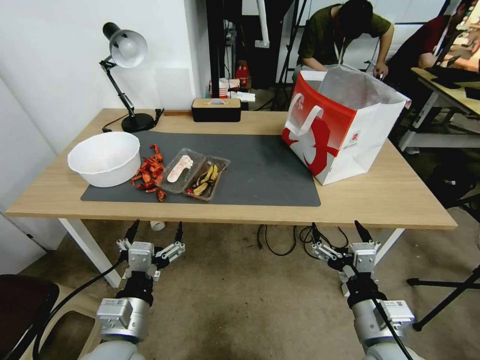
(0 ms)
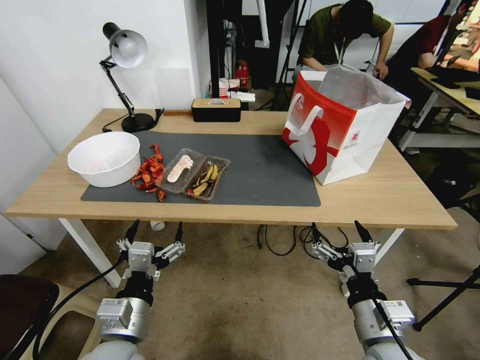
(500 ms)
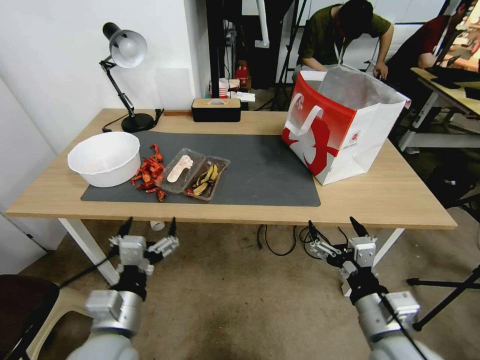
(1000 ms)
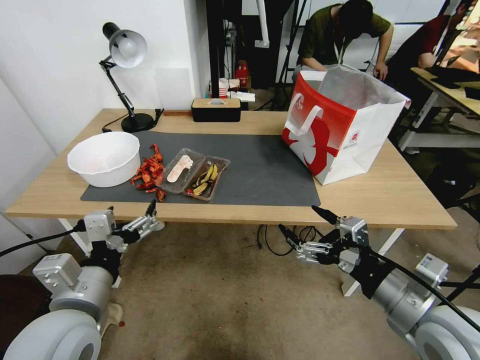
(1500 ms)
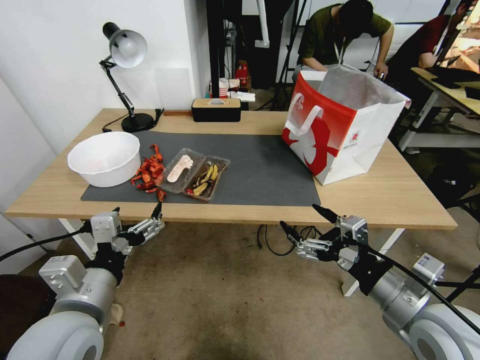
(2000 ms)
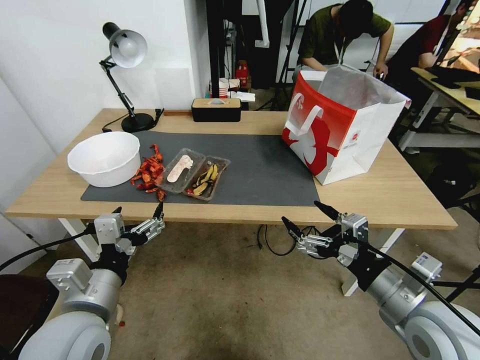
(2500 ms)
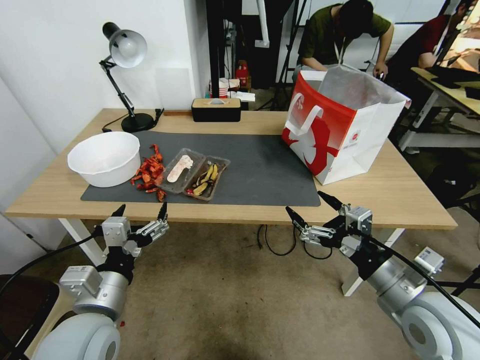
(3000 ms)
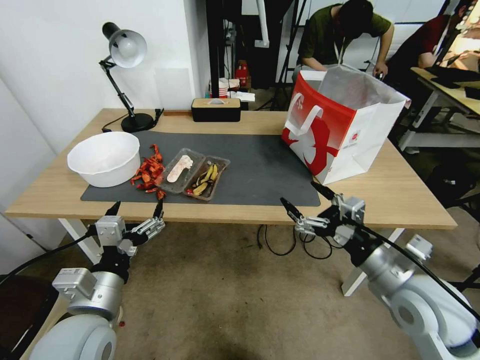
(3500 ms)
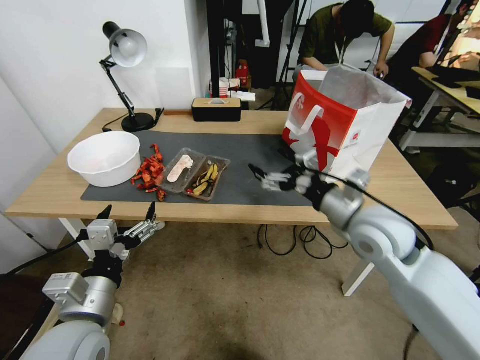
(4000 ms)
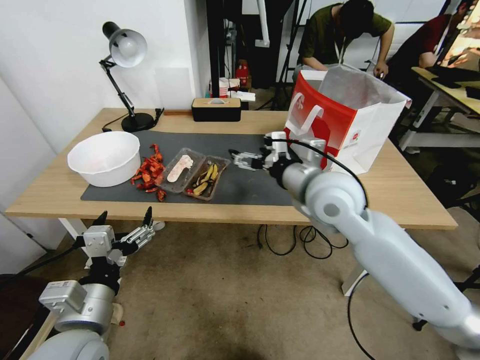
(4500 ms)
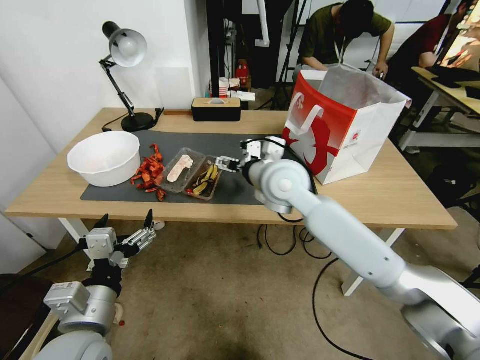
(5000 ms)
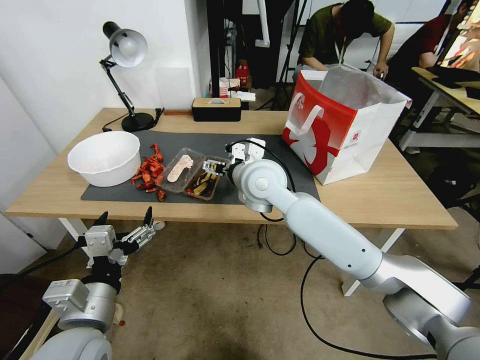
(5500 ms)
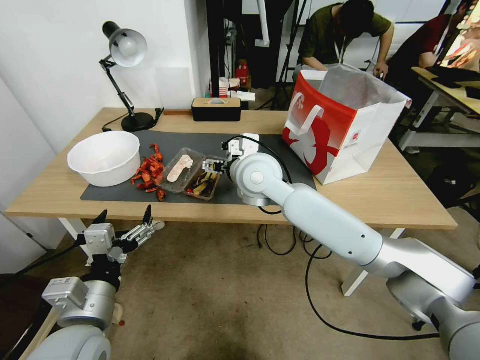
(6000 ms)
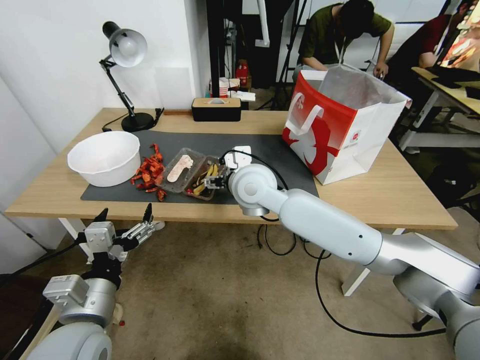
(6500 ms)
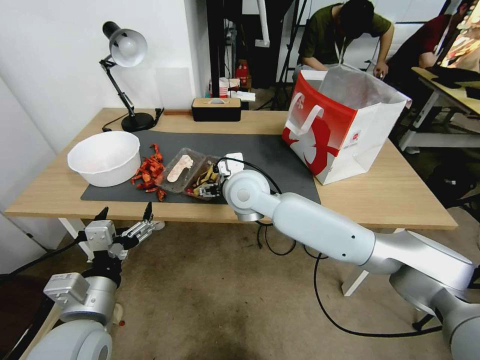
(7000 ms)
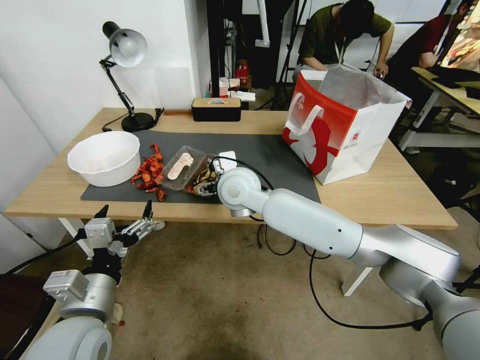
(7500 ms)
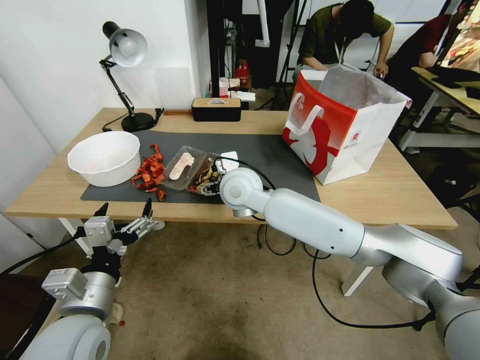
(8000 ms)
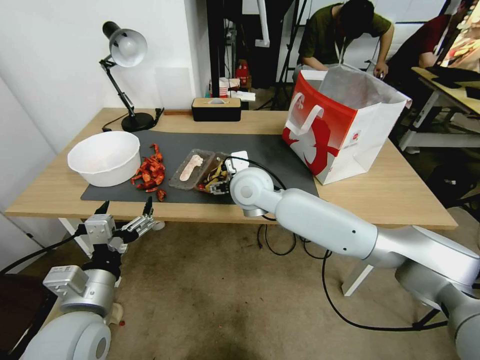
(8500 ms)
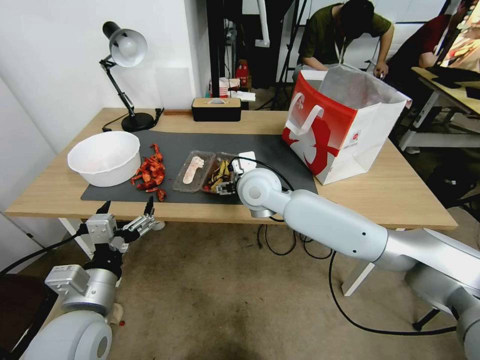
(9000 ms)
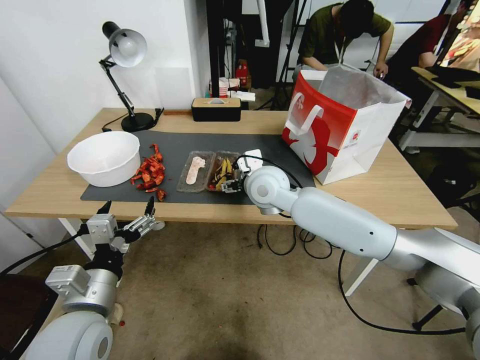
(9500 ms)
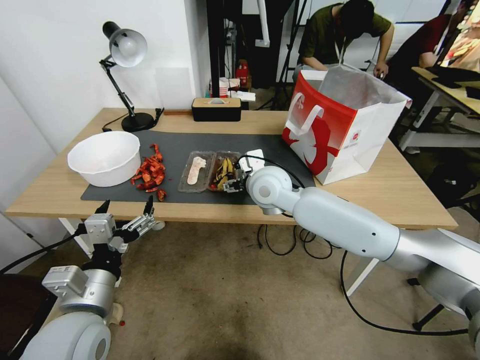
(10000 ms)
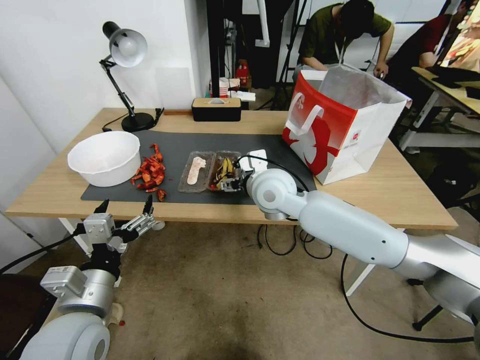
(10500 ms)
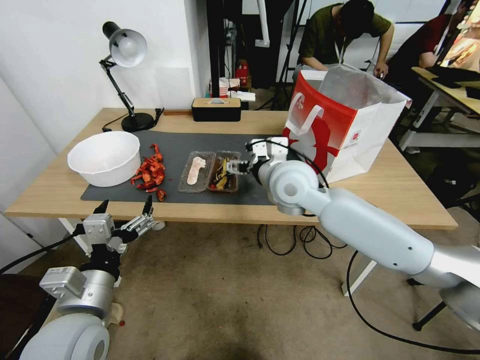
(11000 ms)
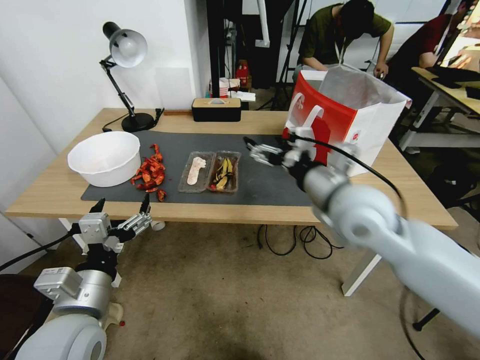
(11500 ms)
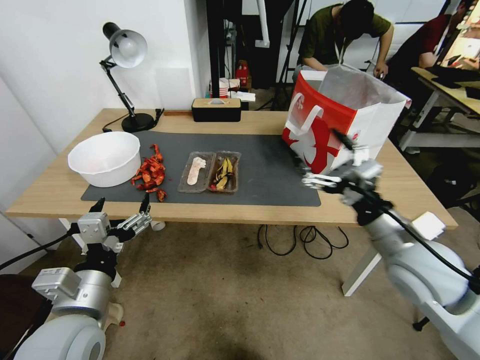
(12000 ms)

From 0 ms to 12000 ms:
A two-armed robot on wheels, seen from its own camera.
From 2000 ms to 4000 ms: The right gripper shifts some 15 cm forward.
From 4000 ms to 6000 ms: The right gripper shifts about 25 cm to the left and forward.
From 6000 ms to 8000 ms: The right gripper shifts by approximately 5 cm.
From 8000 ms to 10000 ms: The right gripper goes roughly 5 cm to the right.
From 10000 ms to 12000 ms: The right gripper is displaced to the right and backward by some 30 cm.

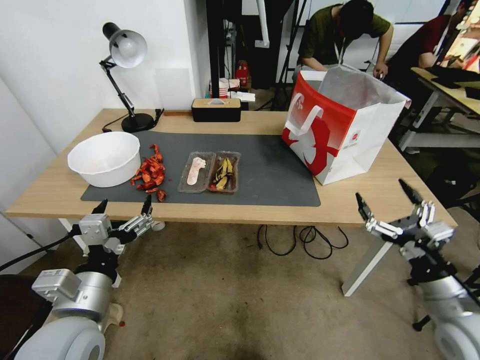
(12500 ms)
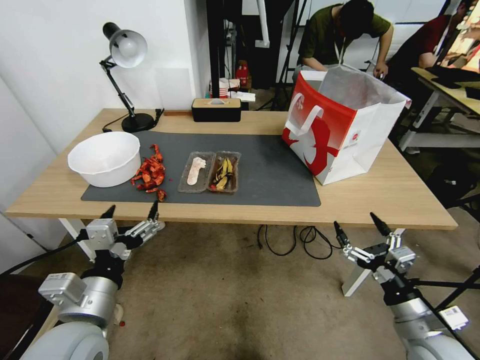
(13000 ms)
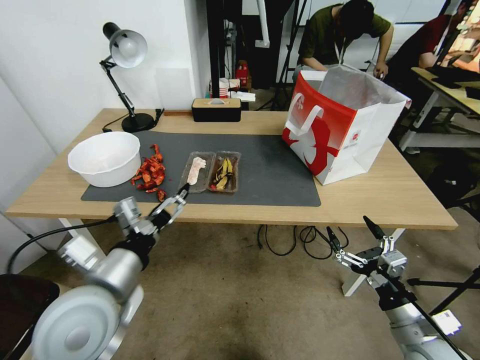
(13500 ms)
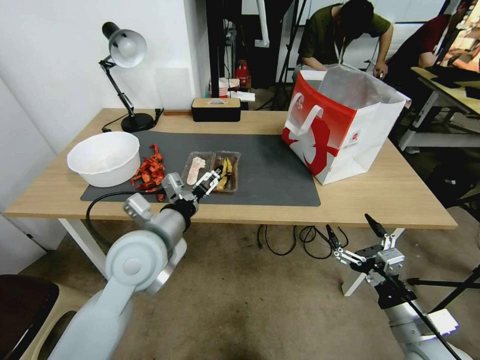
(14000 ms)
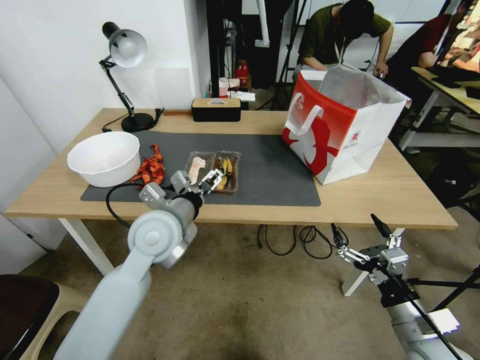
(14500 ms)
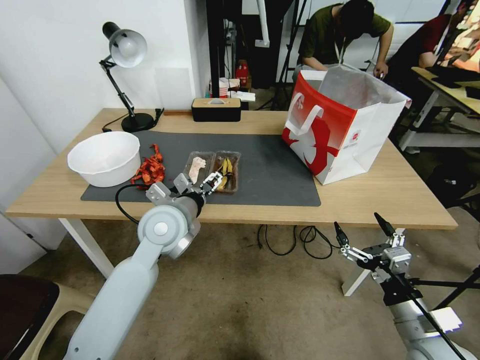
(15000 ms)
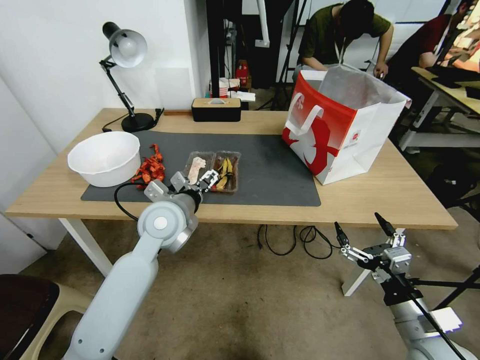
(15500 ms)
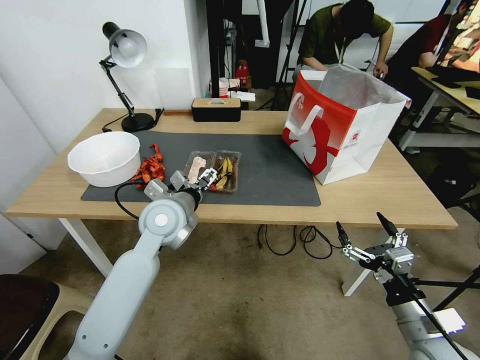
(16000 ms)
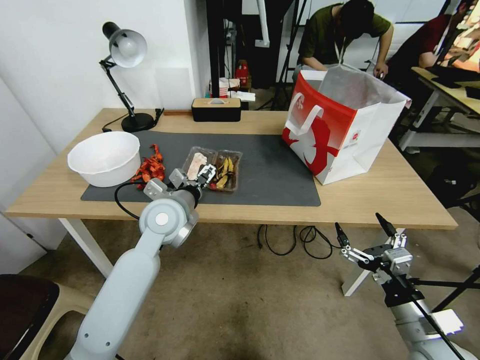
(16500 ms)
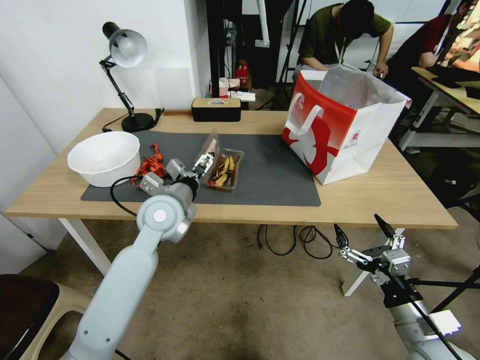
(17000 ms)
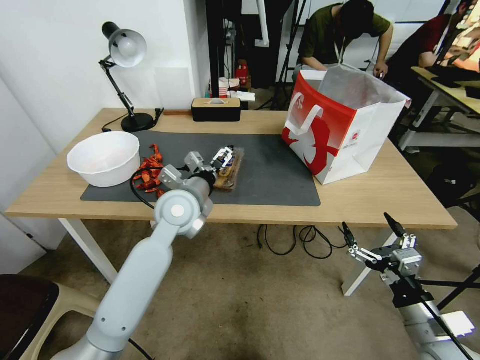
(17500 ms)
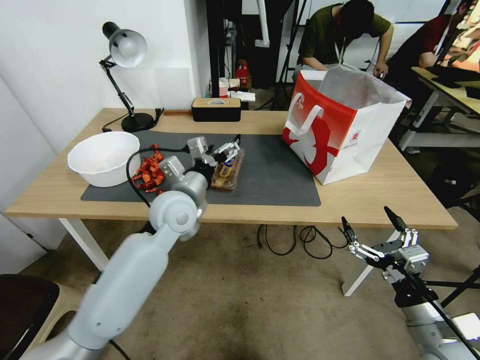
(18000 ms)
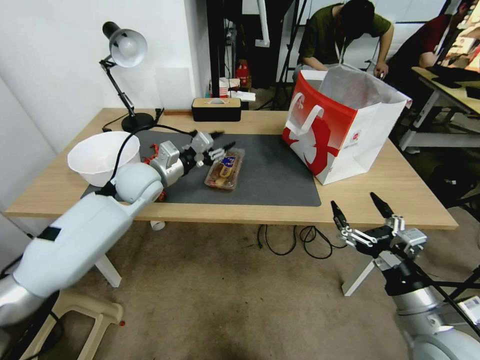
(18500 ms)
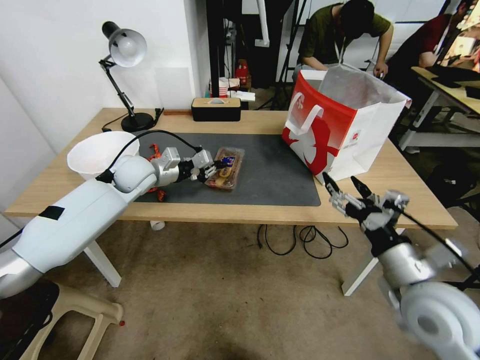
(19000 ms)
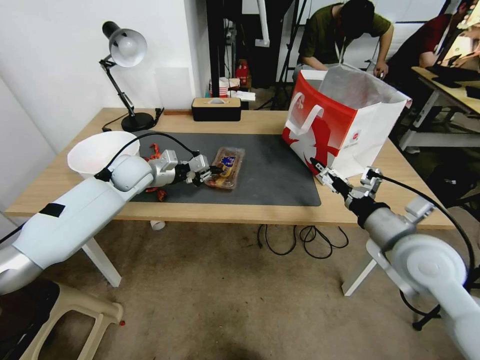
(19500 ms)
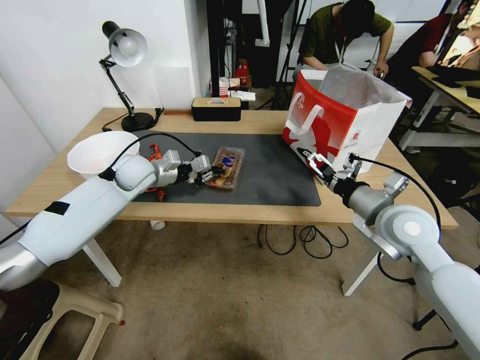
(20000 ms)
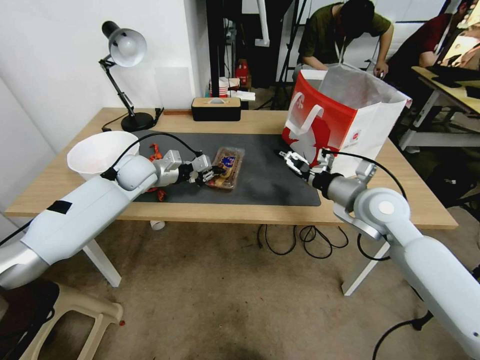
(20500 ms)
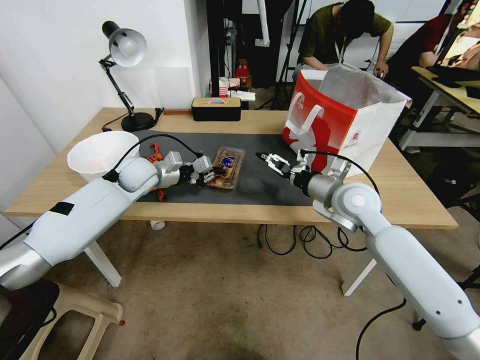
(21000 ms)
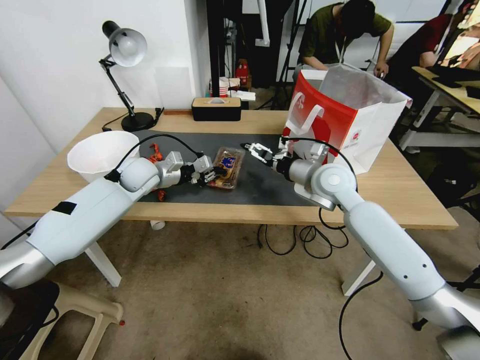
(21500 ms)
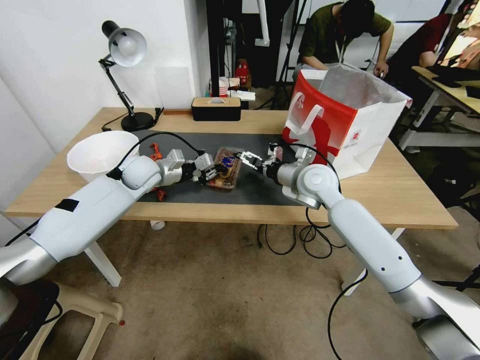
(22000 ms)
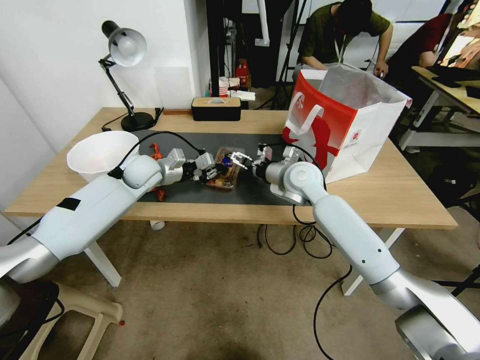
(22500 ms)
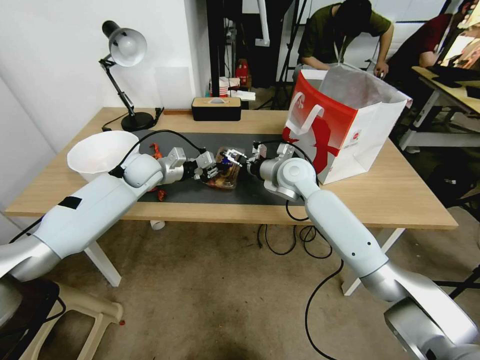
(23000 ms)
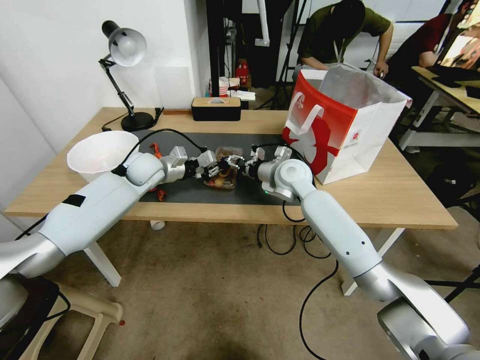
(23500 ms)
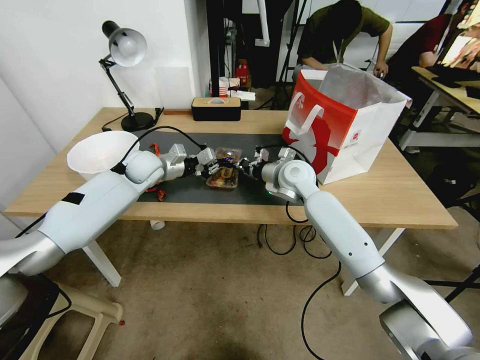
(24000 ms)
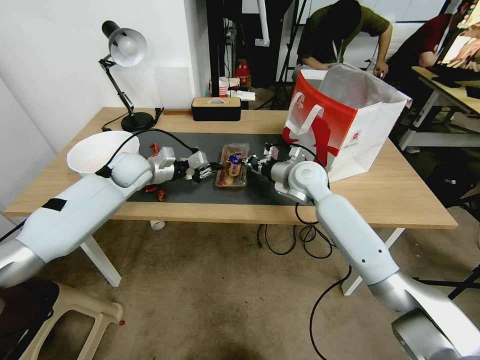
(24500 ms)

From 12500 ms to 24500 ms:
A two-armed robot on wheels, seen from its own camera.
From 12500 ms to 14500 ms: The right gripper moves downward, about 5 cm. The left gripper is displaced forward and to the right by some 20 cm.
From 14500 ms to 16500 ms: The left gripper shifts roughly 5 cm forward.
From 16500 ms to 18500 ms: The right gripper heads upward, covering some 5 cm. Meanwhile the left gripper heads forward and to the left, covering some 10 cm, and closes its fingers.
From 18500 ms to 20500 ms: The left gripper goes approximately 5 cm forward, and closes its fingers, while the right gripper goes approximately 25 cm forward.
From 20500 ms to 22500 ms: The right gripper heads to the left and forward, covering approximately 15 cm.
From 22500 ms to 24500 ms: The right gripper closes.

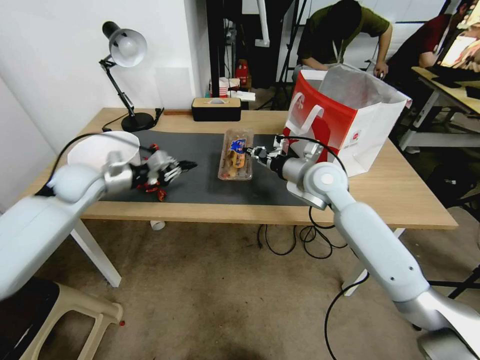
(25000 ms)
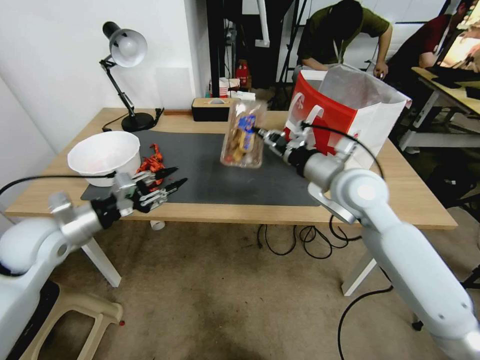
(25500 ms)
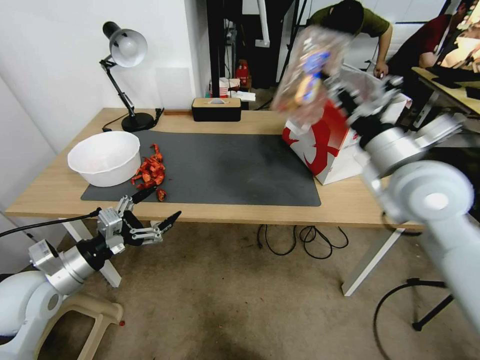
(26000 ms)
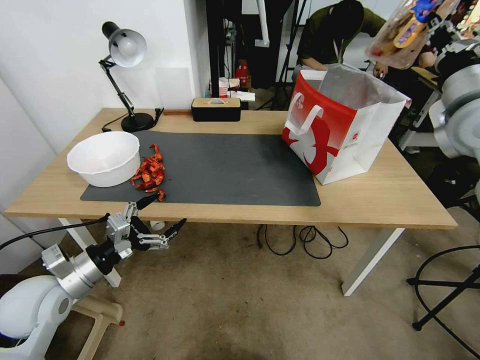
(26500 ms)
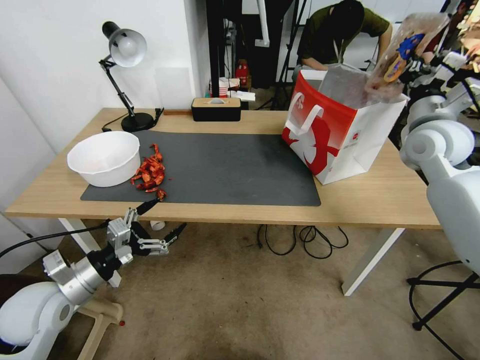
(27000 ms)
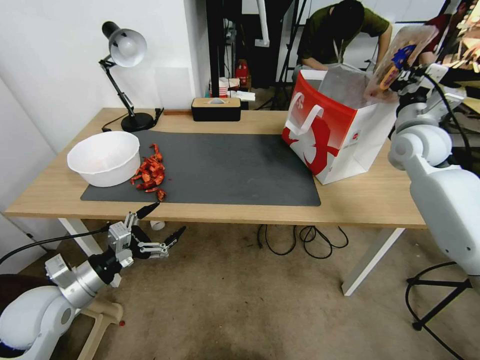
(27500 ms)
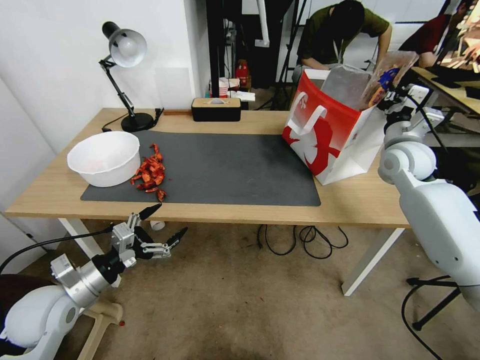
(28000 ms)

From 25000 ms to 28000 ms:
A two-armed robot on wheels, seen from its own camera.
From 25000 ms to 26500 ms: The left gripper travels backward by about 25 cm, and opens. Meanwhile the right gripper shifts approximately 25 cm upward and to the right.
From 26500 ms to 28000 ms: The right gripper is displaced downward and forward by approximately 15 cm.
